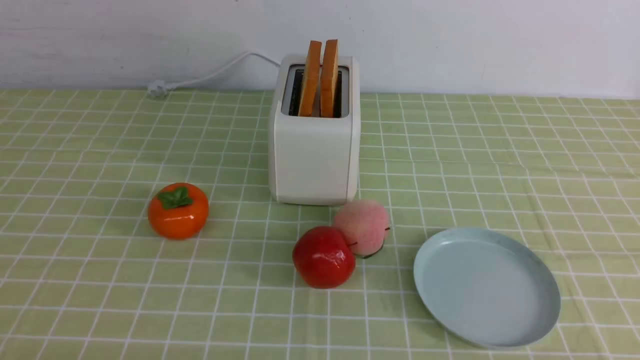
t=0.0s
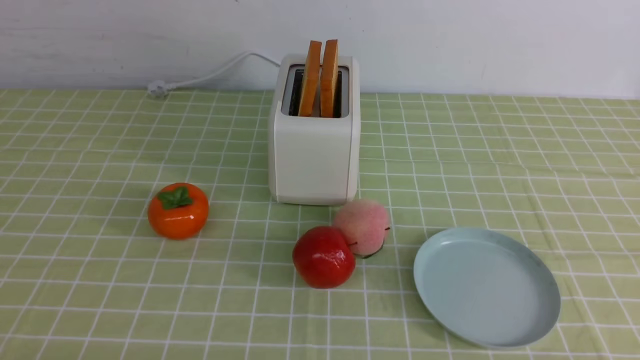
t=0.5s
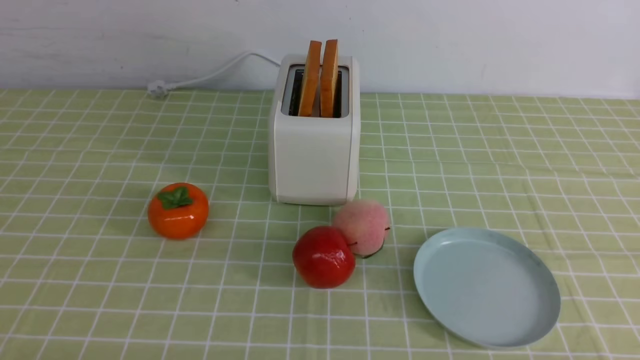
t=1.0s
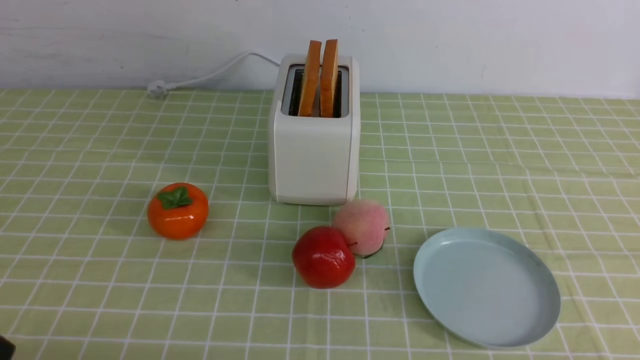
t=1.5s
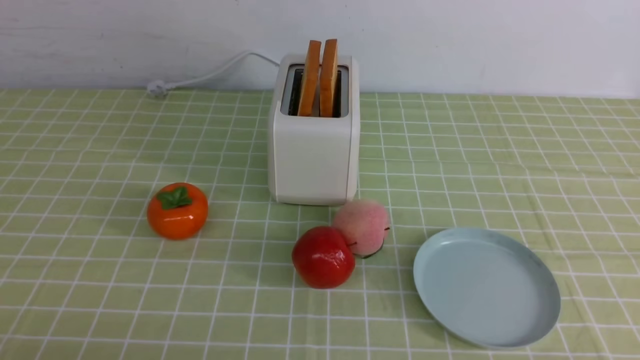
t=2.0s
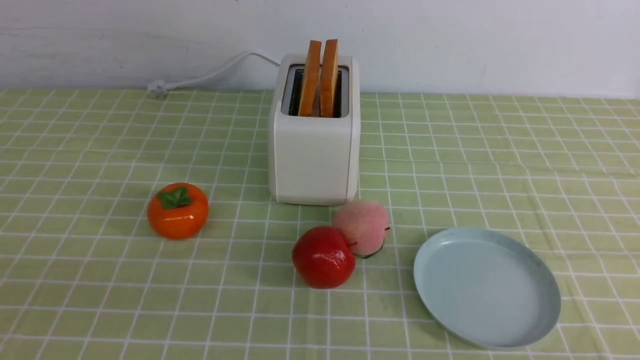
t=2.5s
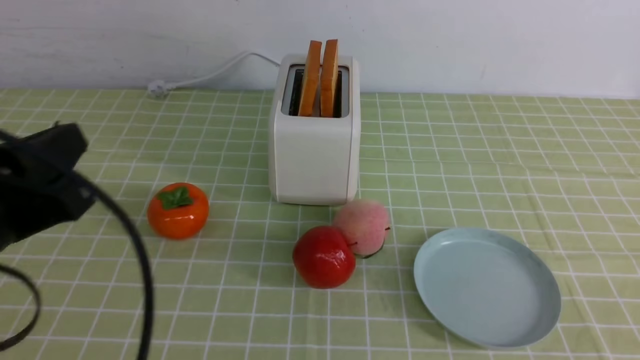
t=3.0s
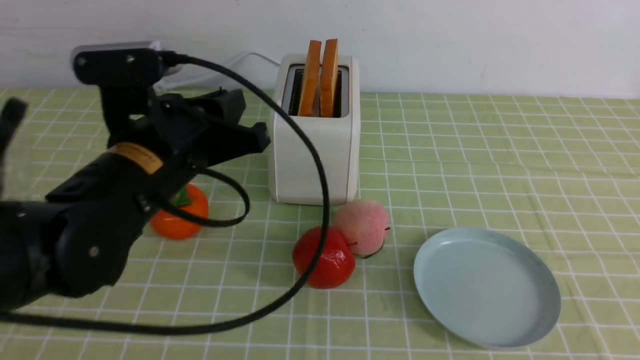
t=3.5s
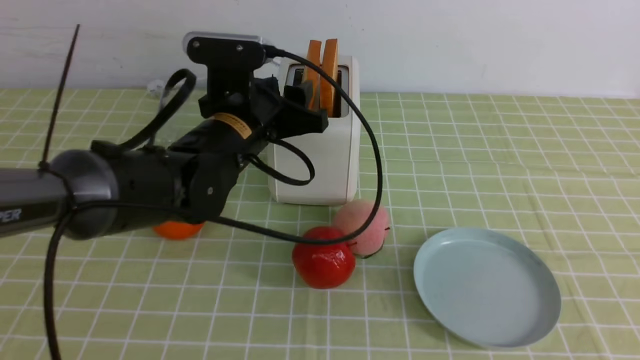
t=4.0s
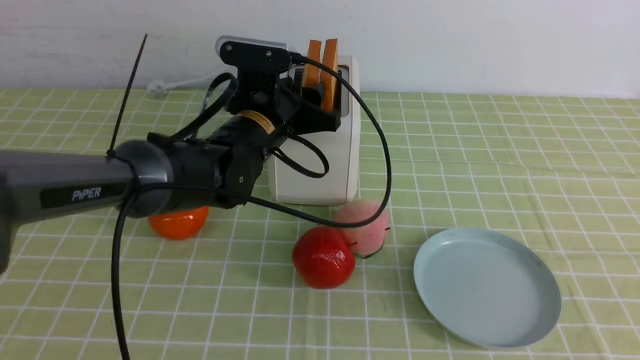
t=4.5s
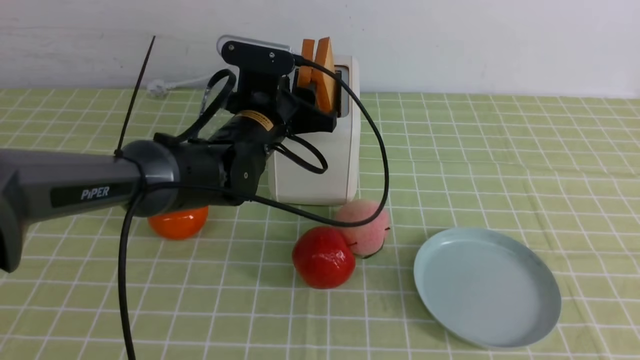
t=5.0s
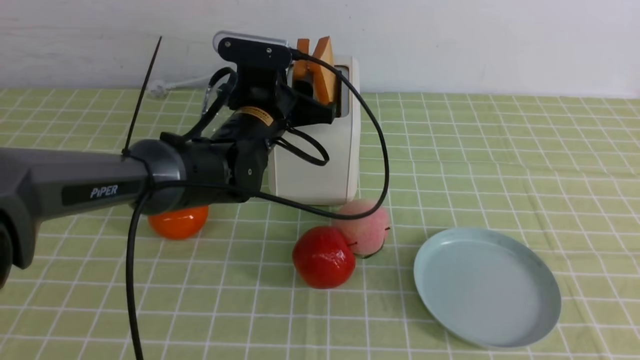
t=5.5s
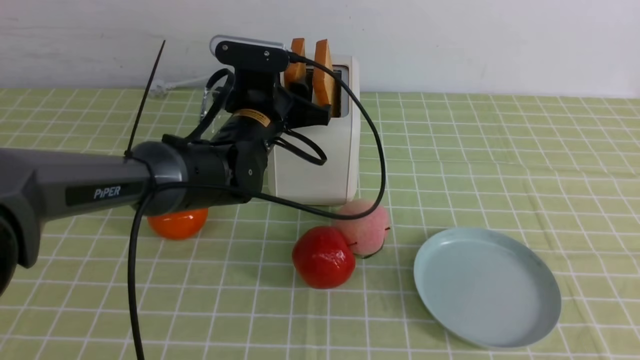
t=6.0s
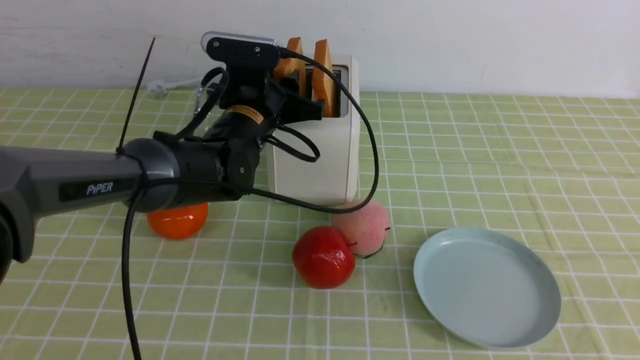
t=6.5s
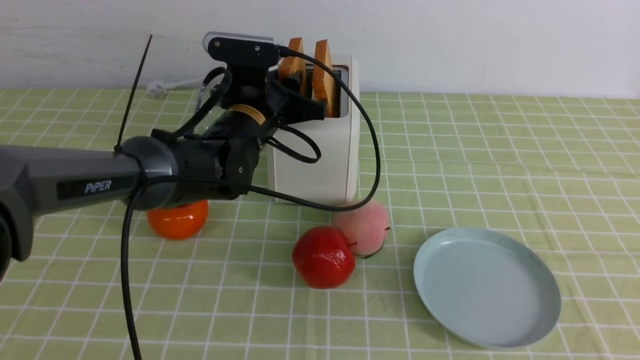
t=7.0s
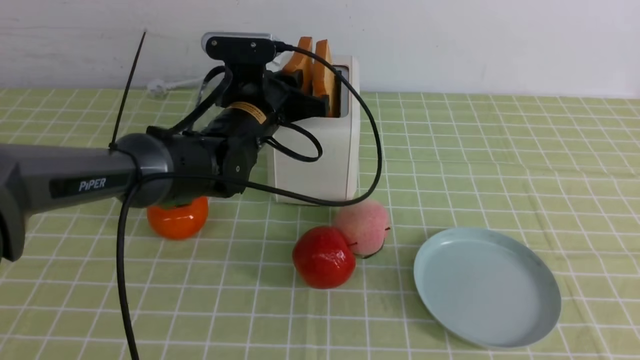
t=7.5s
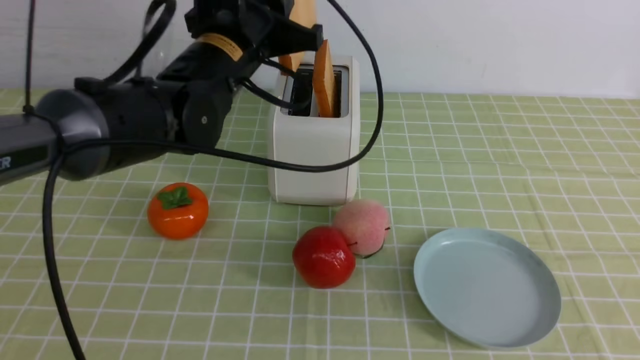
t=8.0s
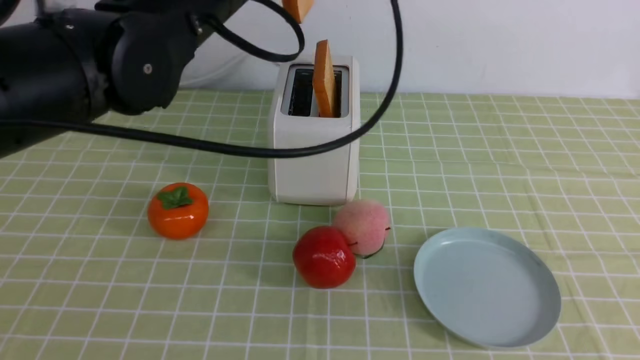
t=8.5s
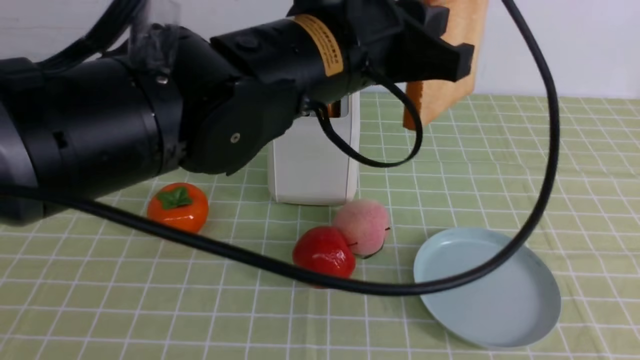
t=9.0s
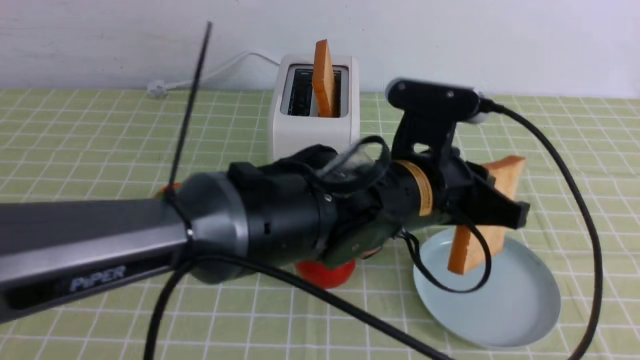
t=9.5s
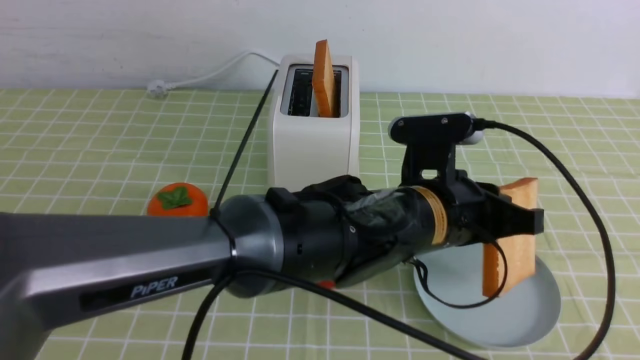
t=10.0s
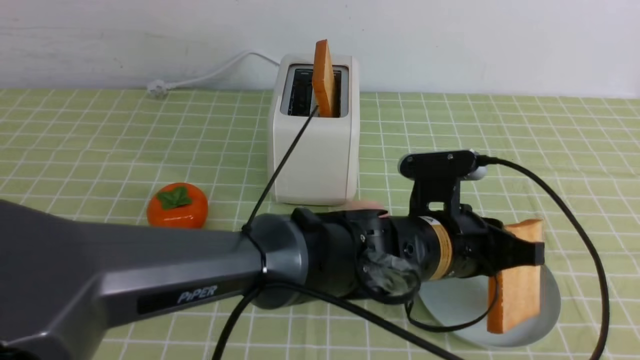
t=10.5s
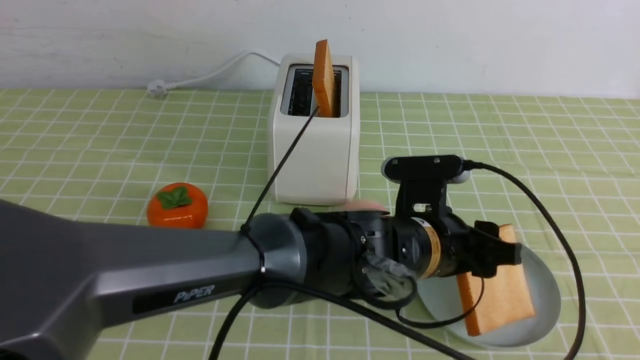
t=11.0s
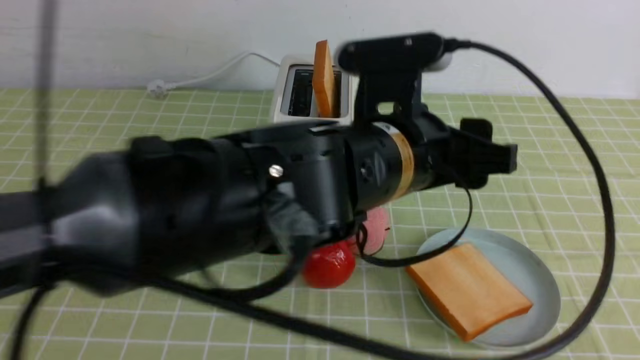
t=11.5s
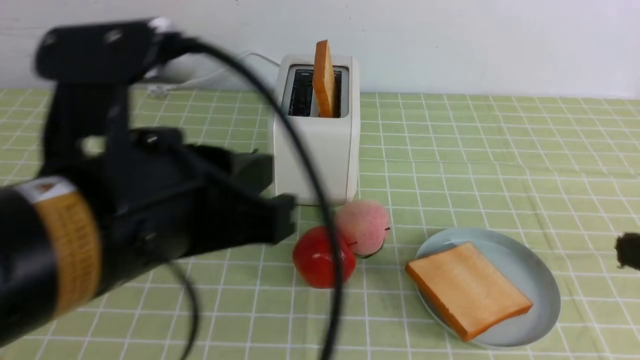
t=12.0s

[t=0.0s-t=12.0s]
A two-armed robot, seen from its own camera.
Task of the whole recording: take toasted bread from bread machine on green coffee tablecloth place on plate.
Step, t=0.0s to t=8.0s: use the left arm to take out a slice of bread.
Step, t=8.5s to t=11.0s: use the left arm to put a slice of bread into the empty plate.
t=2.0s to t=4.0s: The left gripper heads forward and to the right, covering roughly 35 cm, and opens its fingers, while the right gripper travels upward by some 15 cm, and closes.
t=4.0s to t=6.0s: The left gripper travels forward by about 5 cm.
t=6.0s to t=8.0s: The left gripper heads upward, covering about 10 cm, and closes.
t=8.0s to t=10.0s: The left gripper goes about 25 cm to the right, backward and downward.
t=10.0s to t=12.0s: The right gripper is displaced forward and upward by some 10 cm. The left gripper heads to the left, backward and upward, covering approximately 25 cm, and opens and closes again.

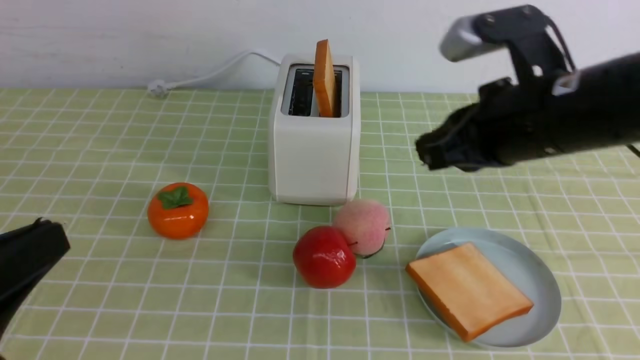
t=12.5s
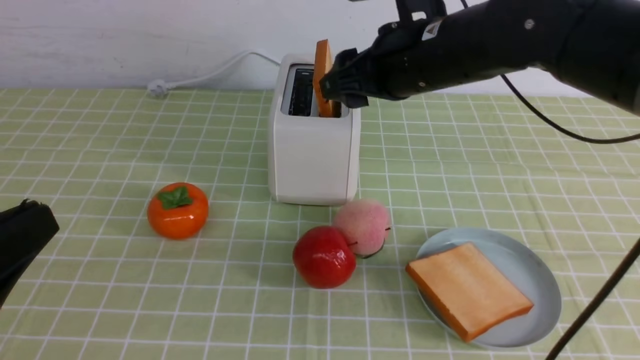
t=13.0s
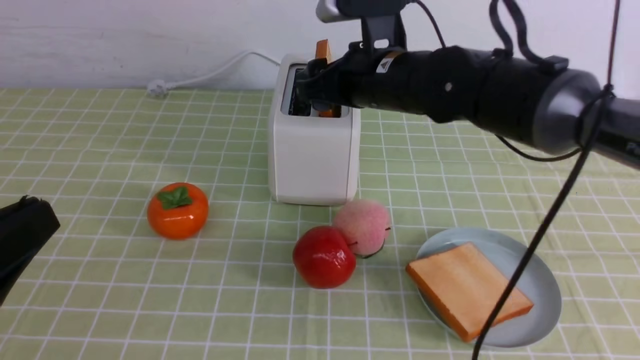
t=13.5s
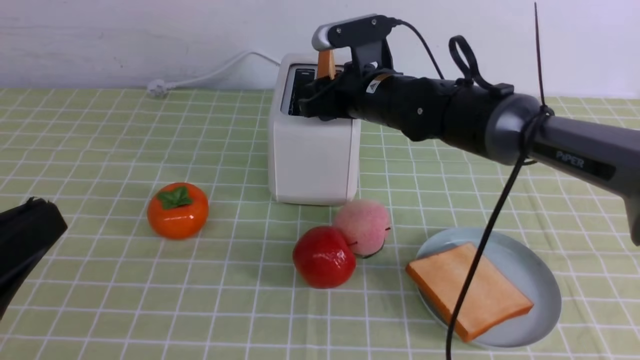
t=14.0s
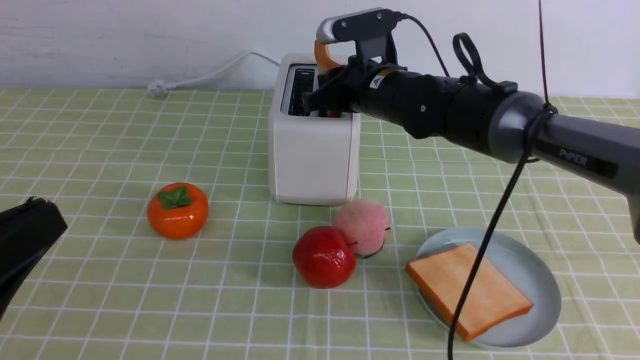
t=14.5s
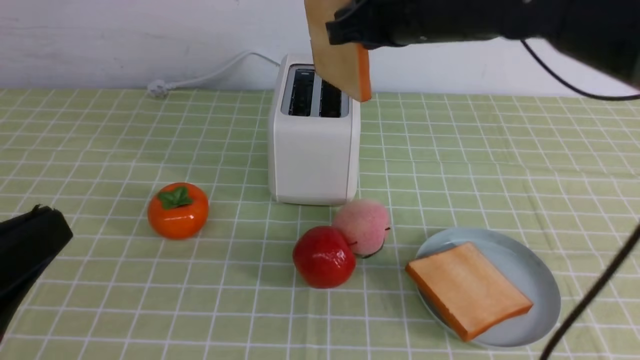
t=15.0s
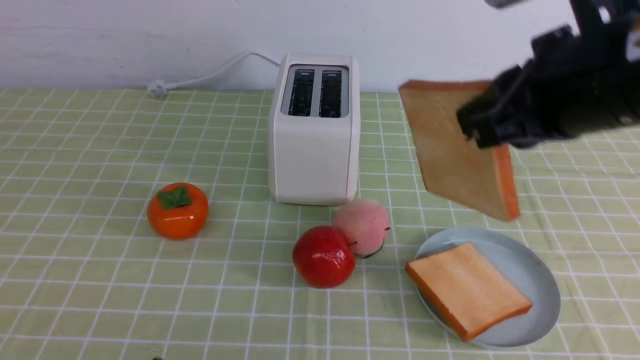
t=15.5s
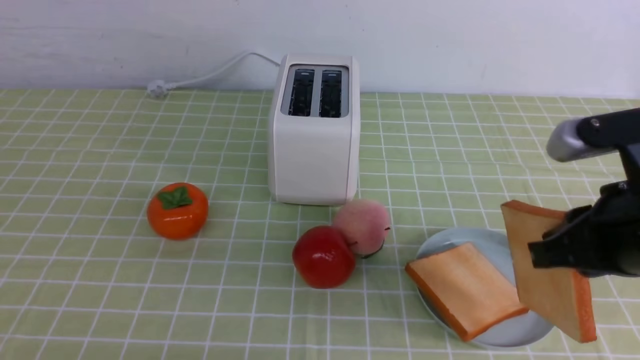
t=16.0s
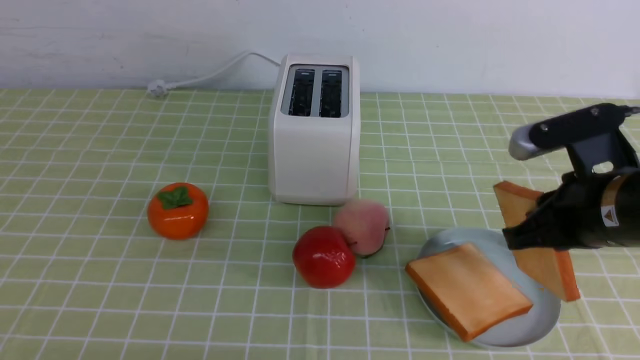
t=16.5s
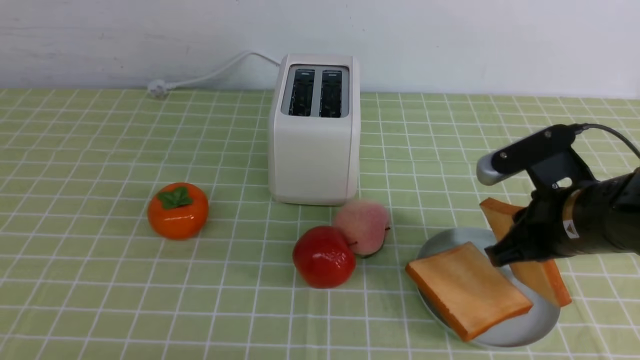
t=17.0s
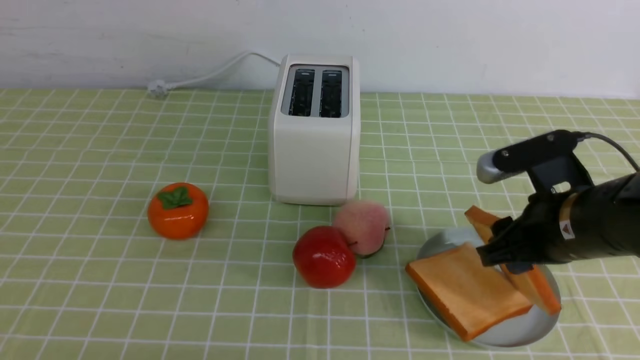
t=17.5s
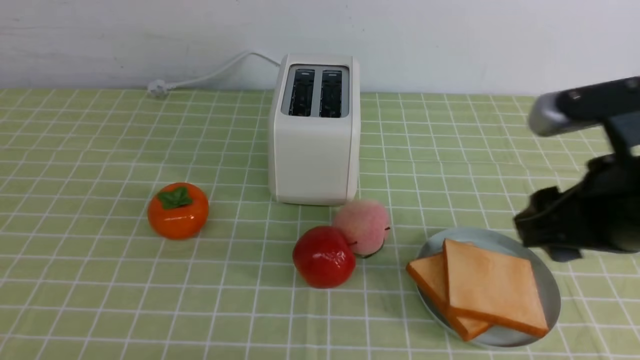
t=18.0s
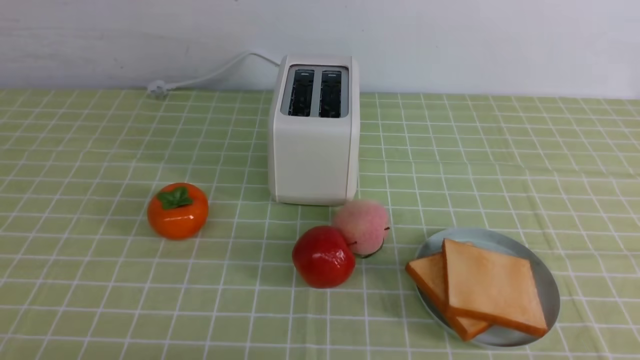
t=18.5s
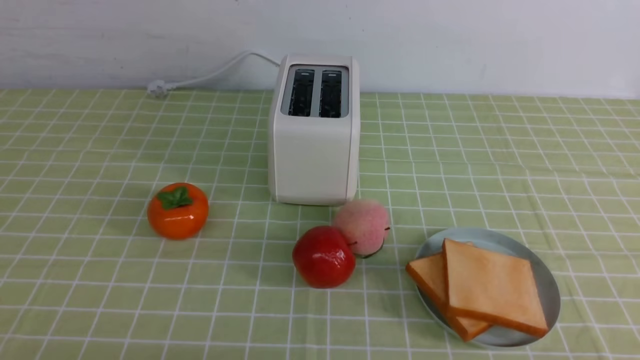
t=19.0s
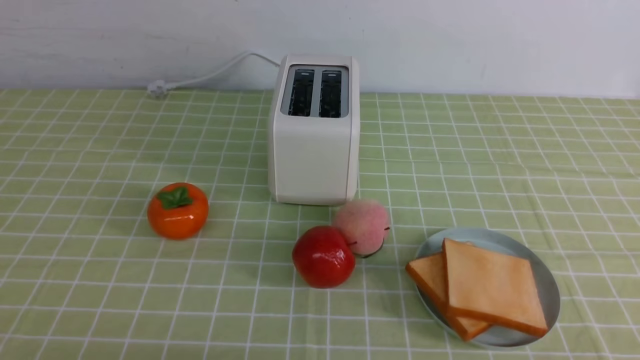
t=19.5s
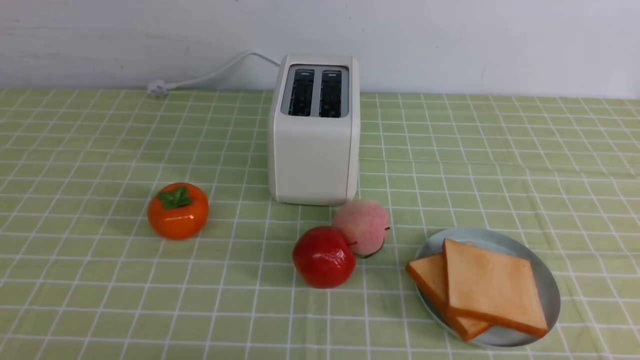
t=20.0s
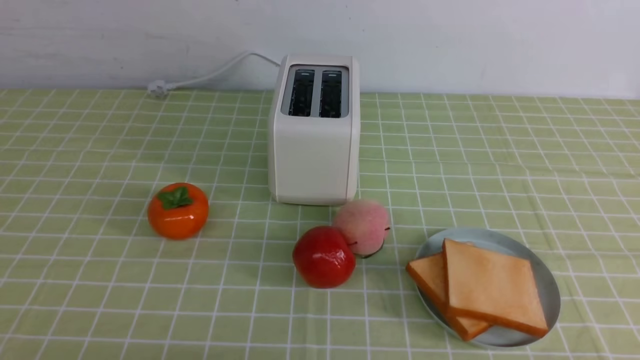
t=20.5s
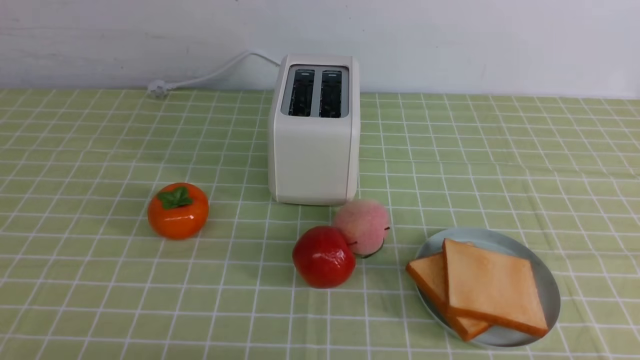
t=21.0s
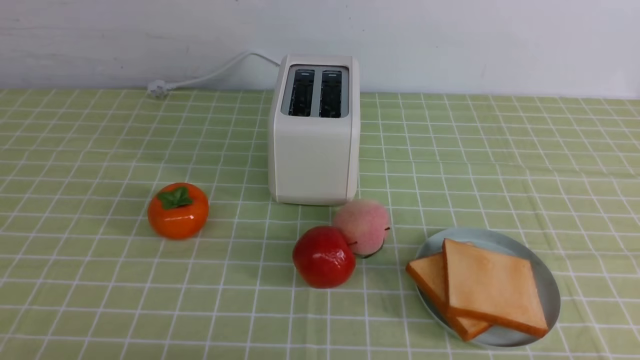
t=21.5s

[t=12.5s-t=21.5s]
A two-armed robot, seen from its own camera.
Task of the whole recording: take toasted bread from bread machine on green coffee tablecloth place on plate.
Step, t=12.5s to t=14.5s: use the right arm to take out a slice of bread.
Step, t=15.5s to t=18.0s: use the right arm to put a slice of bread into the plate.
t=12.5s to t=14.5s: The right gripper travels forward, to the left and downward by about 20 cm, and opens and closes again.
t=14.5s to t=17.0s: The left gripper moves downward, about 10 cm. Meanwhile the right gripper goes roughly 25 cm backward and to the right.
t=17.0s to t=19.5s: The right gripper moves backward, about 25 cm, and opens and closes again.
